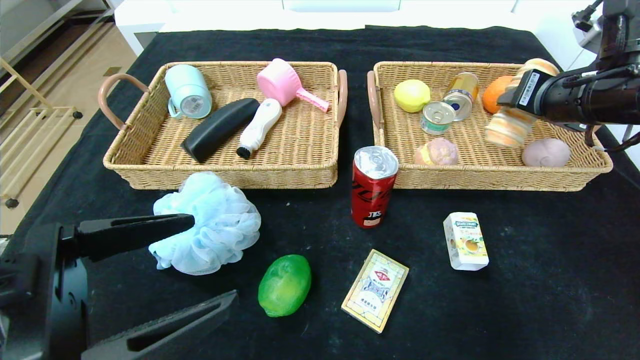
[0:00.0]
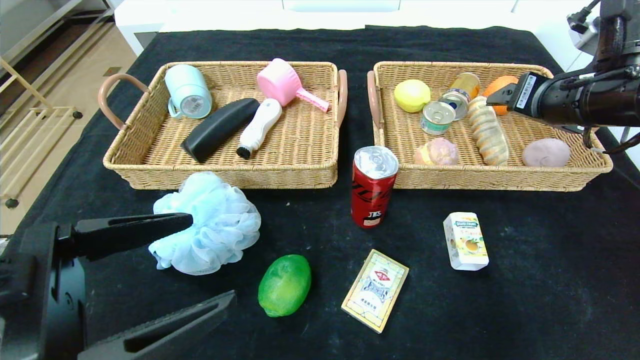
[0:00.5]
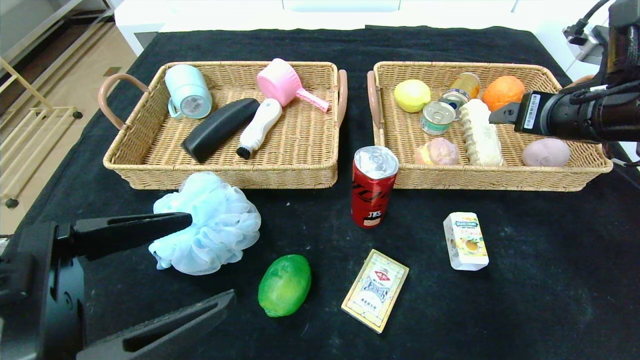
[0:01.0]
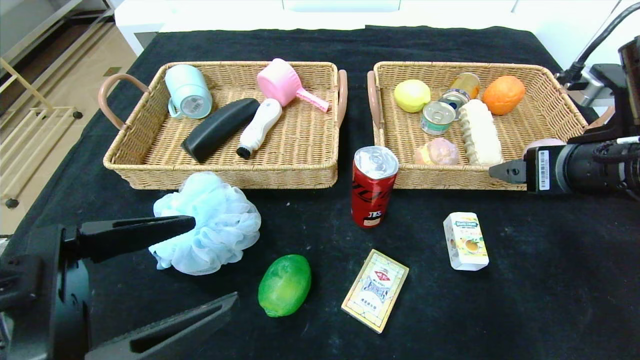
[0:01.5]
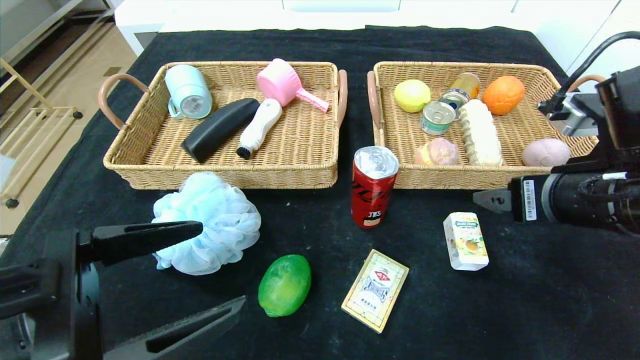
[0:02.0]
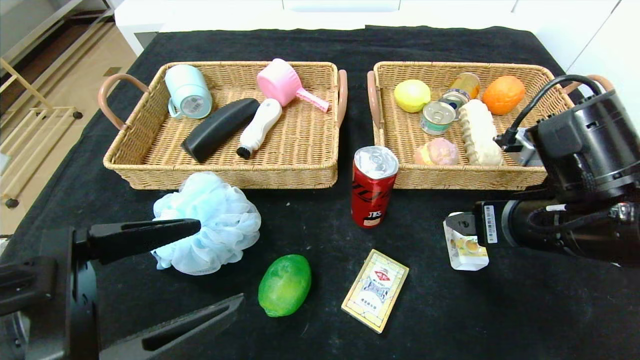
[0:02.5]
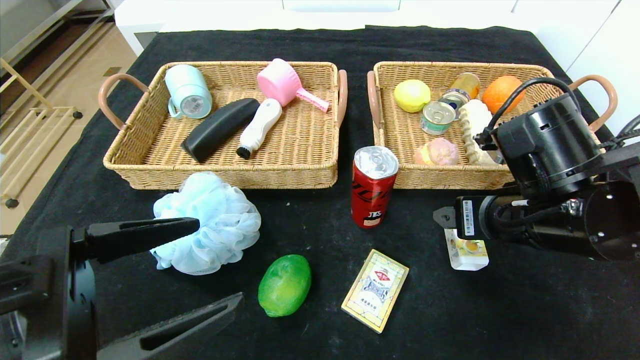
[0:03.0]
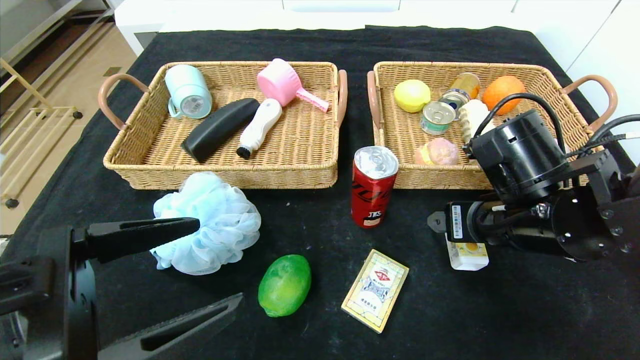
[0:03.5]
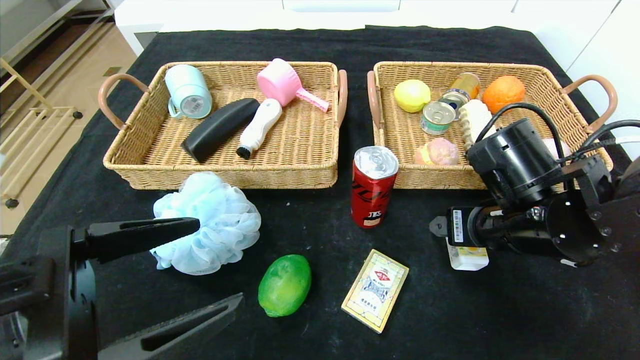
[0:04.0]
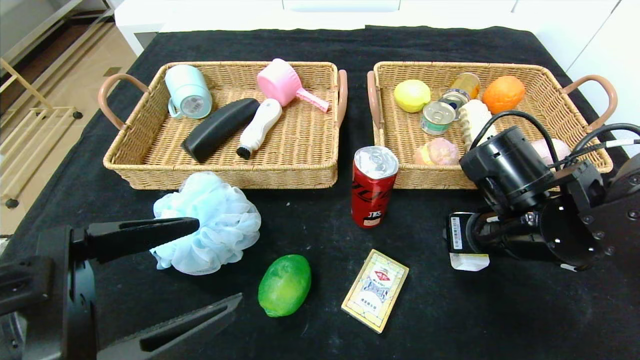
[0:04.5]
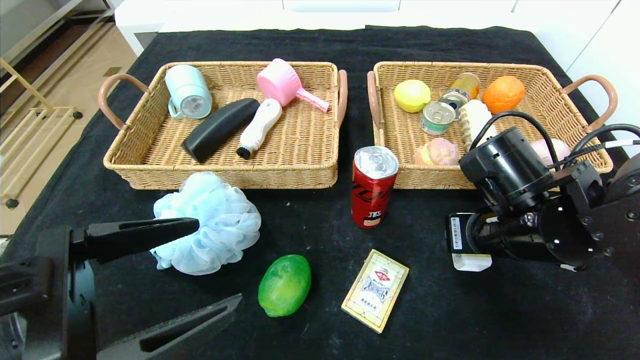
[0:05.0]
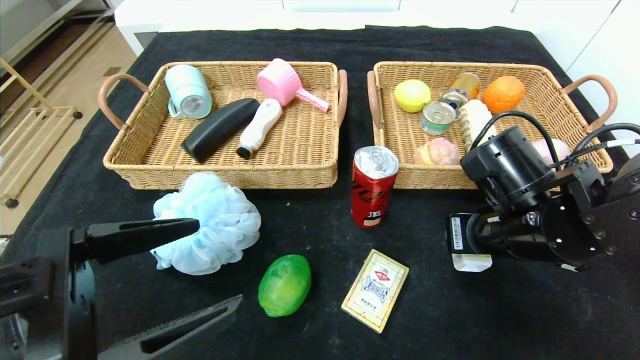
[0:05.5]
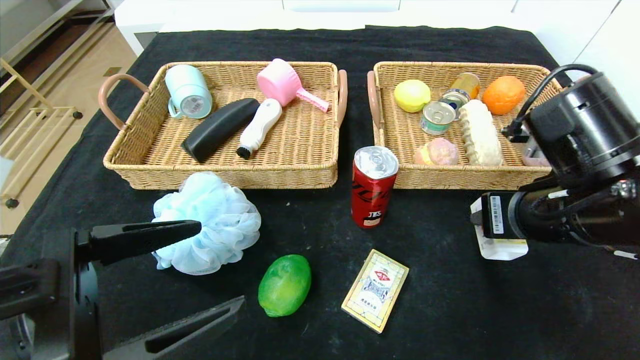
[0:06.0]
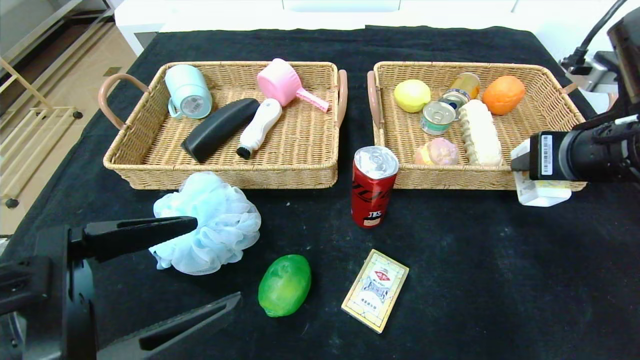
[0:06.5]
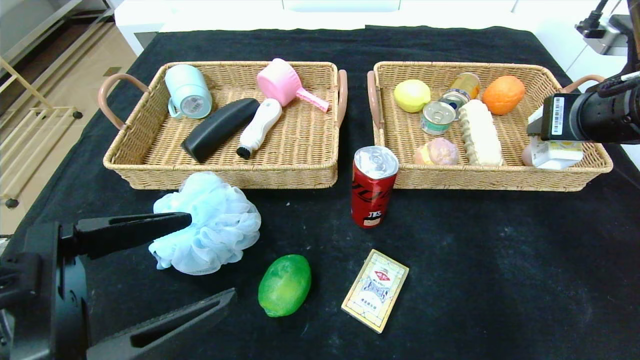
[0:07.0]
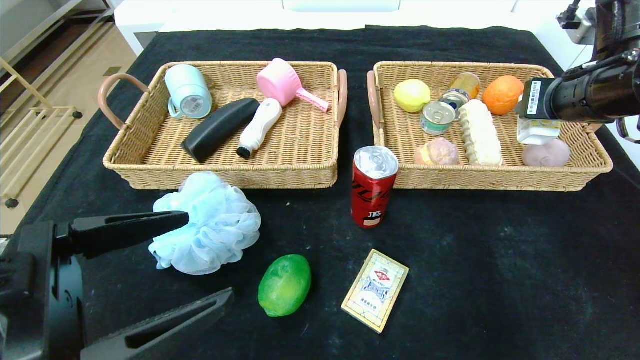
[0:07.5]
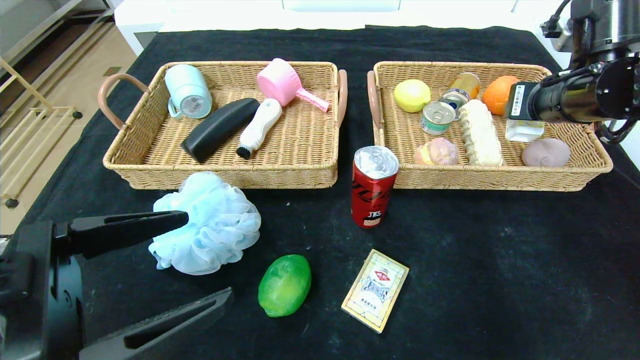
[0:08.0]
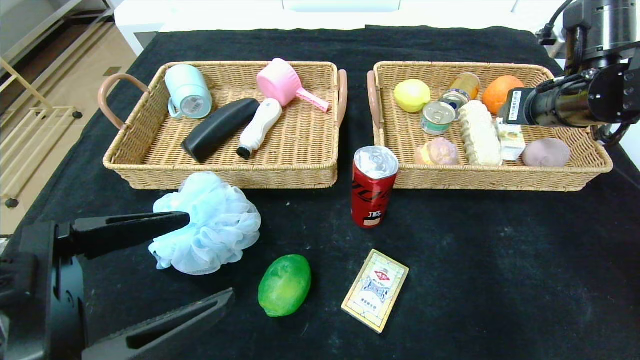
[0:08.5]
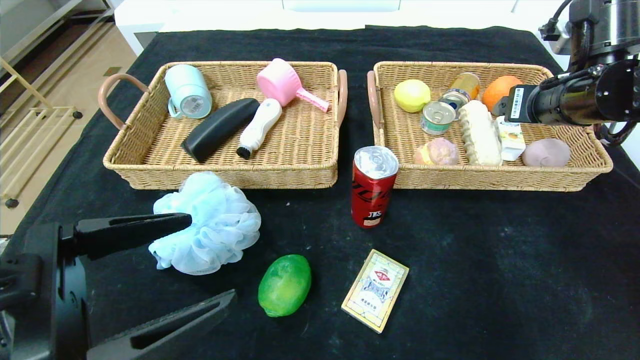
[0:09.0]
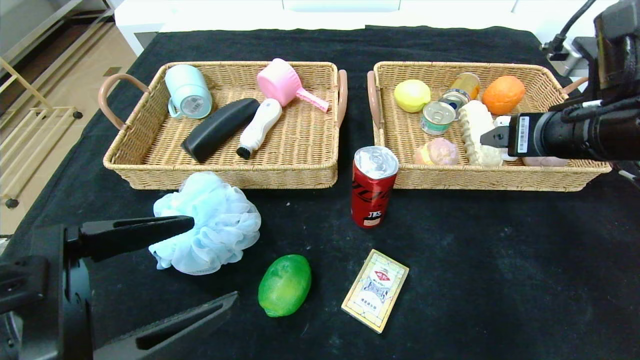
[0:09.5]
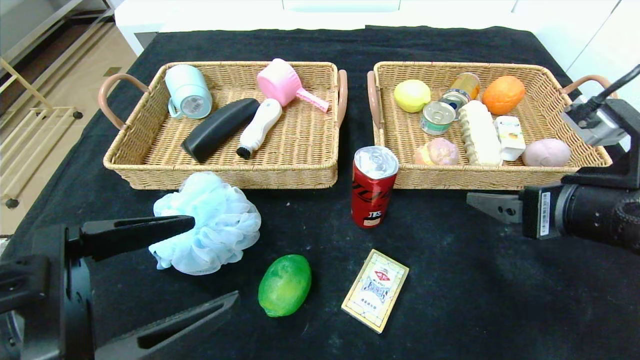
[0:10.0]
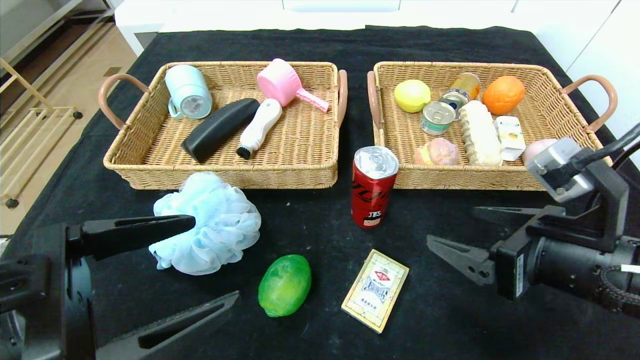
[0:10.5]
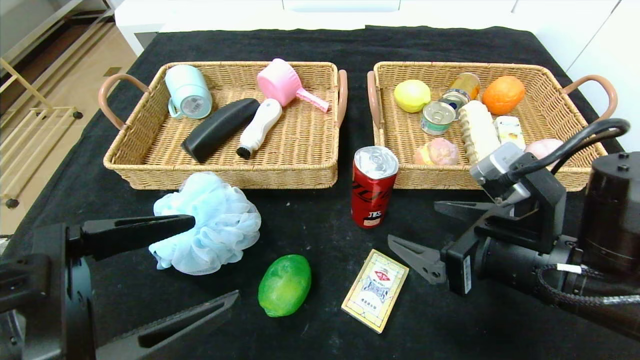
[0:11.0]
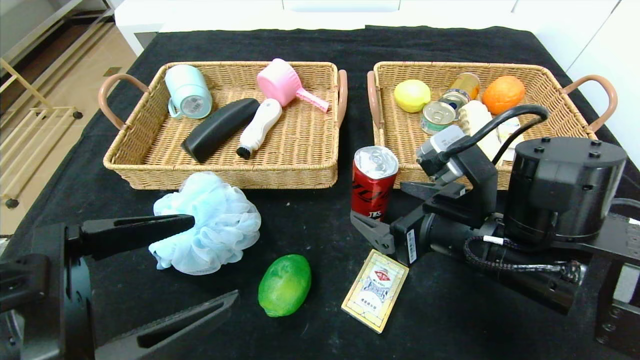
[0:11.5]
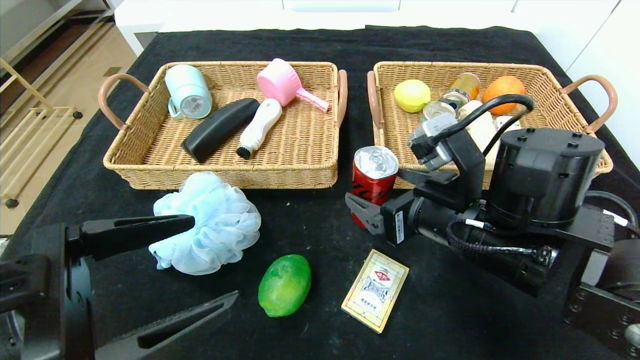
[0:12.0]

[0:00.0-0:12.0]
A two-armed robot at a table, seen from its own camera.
Step, 0:00.5 to 0:08.5: Grasp the square chewing gum and put it in the right basket.
0:00.0 to 0:02.0: The right gripper shifts roughly 15 cm backward, downward and to the left, and opens up.
0:02.0 to 0:04.0: The right gripper goes approximately 5 cm downward.
0:04.0 to 0:06.0: The right gripper shifts by some 5 cm, and closes.
0:06.0 to 0:08.0: The right gripper shifts about 15 cm forward, upward and to the right.
0:08.0 to 0:10.0: The right gripper heads backward and downward, covering approximately 15 cm, and opens.
0:10.0 to 0:12.0: The right gripper shifts about 10 cm to the left.

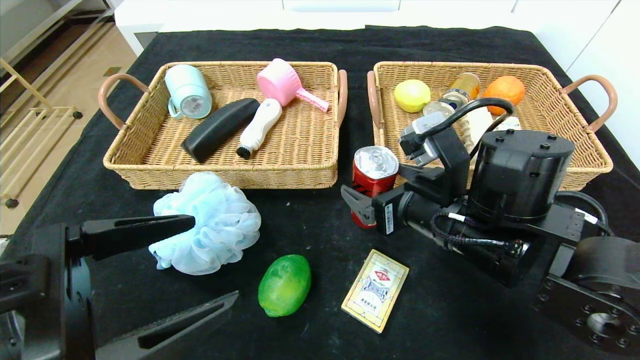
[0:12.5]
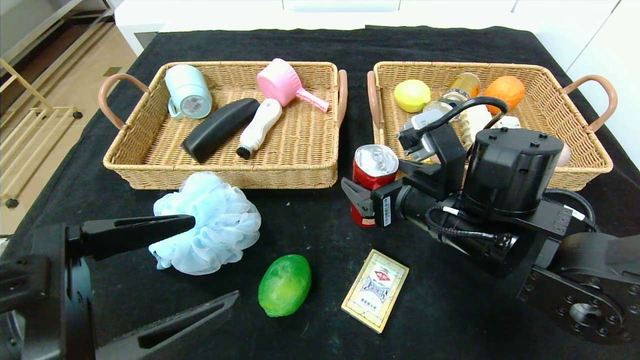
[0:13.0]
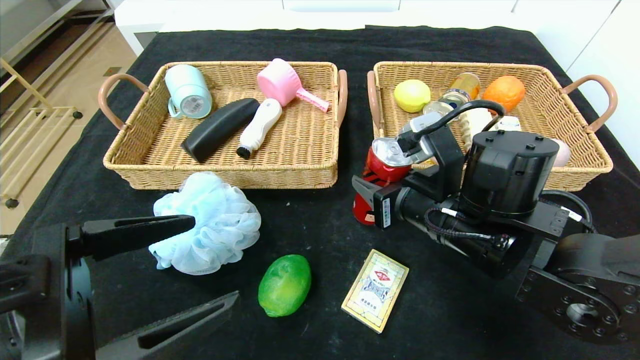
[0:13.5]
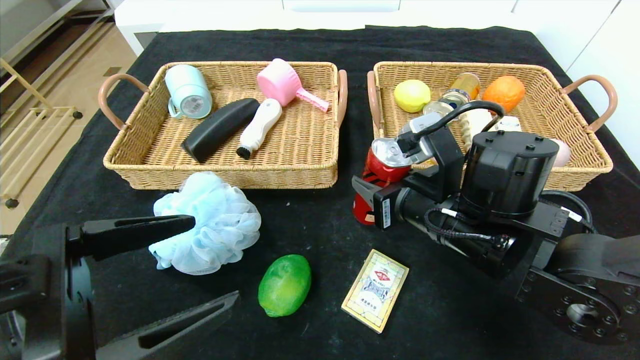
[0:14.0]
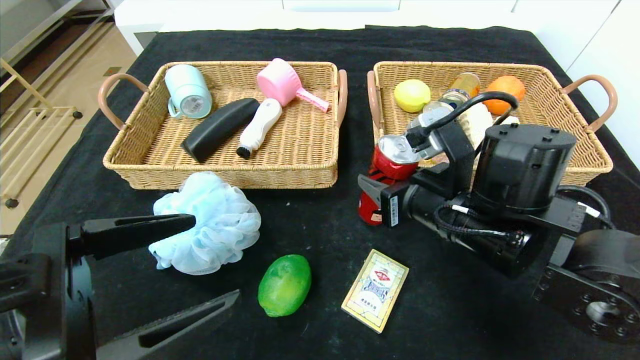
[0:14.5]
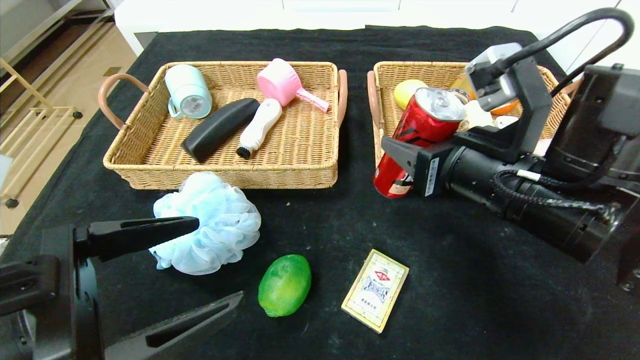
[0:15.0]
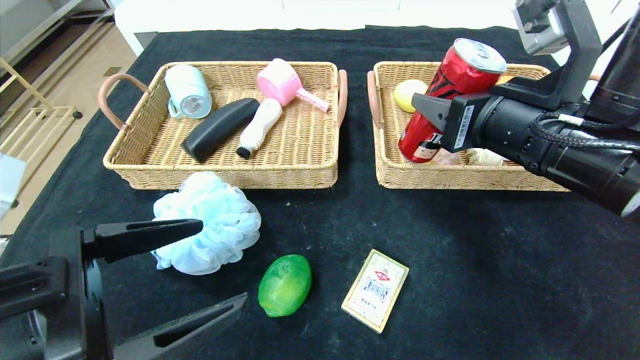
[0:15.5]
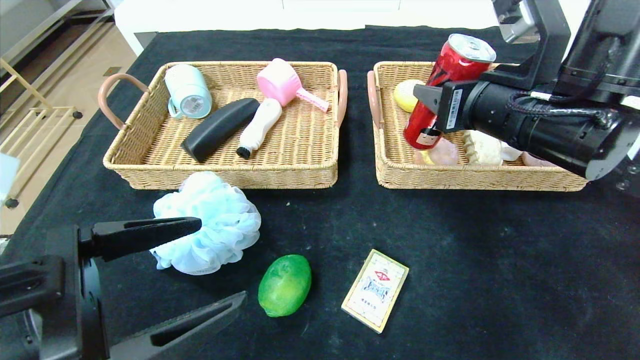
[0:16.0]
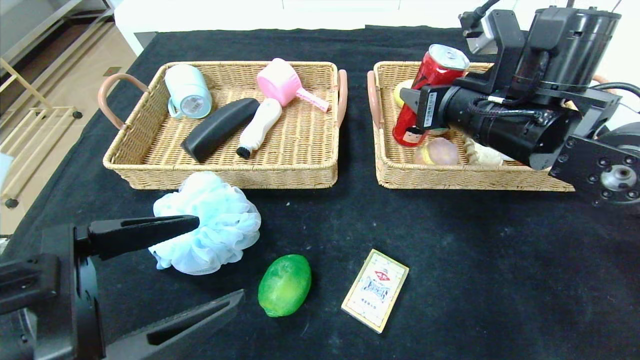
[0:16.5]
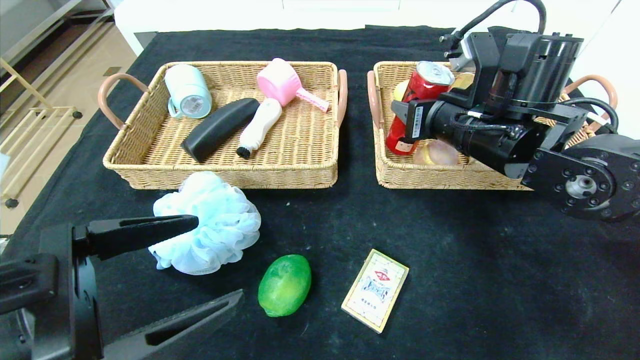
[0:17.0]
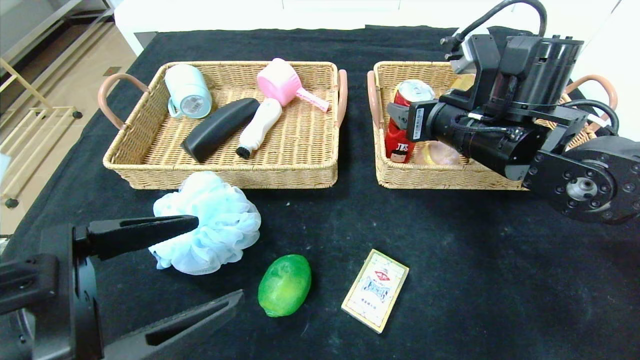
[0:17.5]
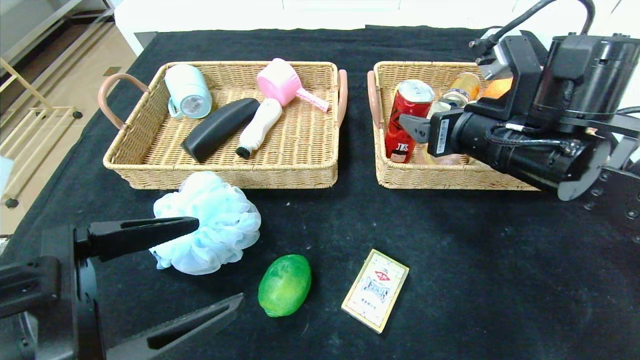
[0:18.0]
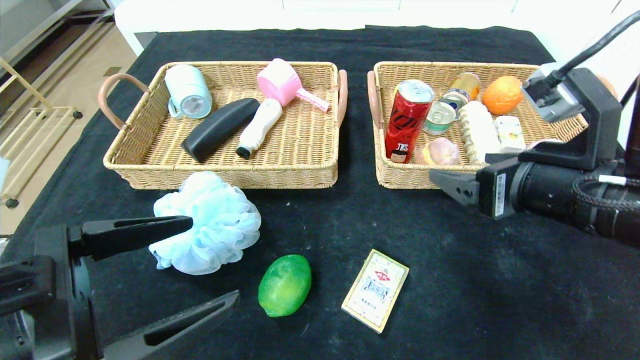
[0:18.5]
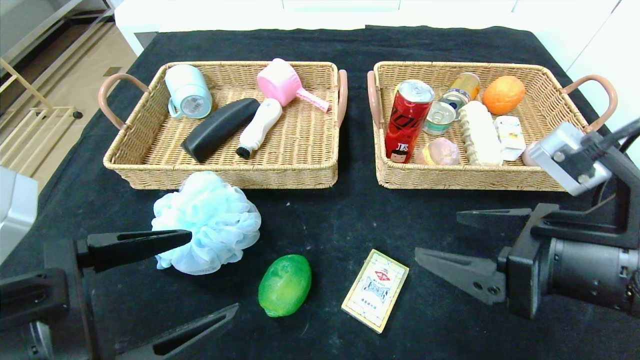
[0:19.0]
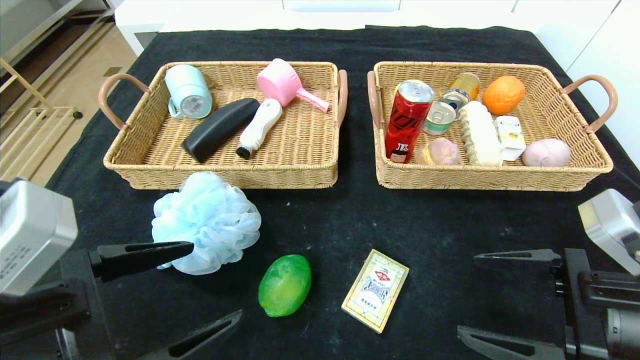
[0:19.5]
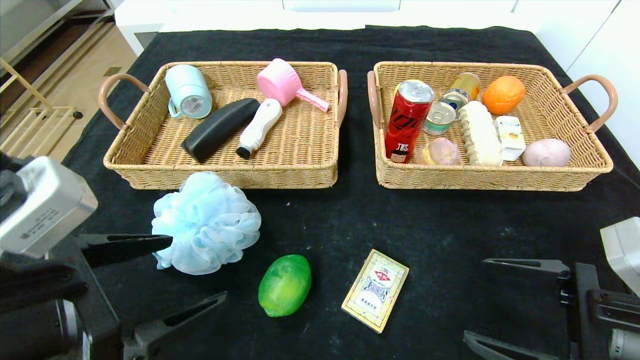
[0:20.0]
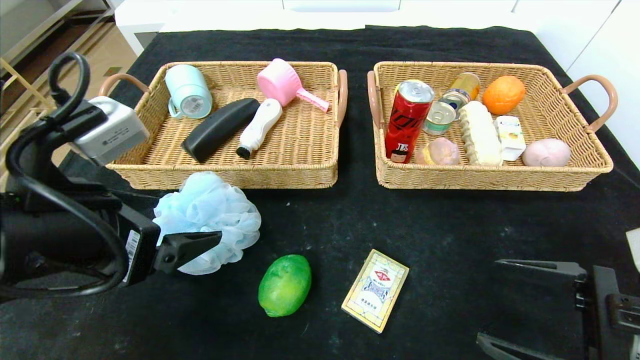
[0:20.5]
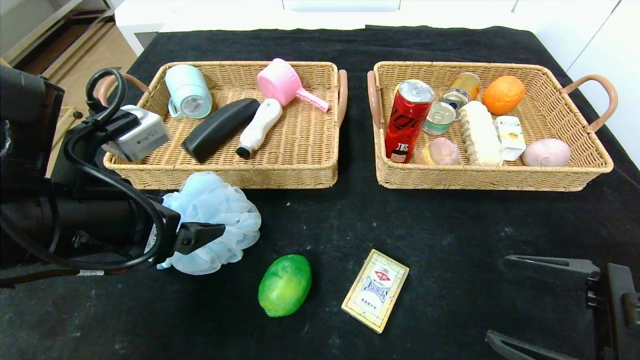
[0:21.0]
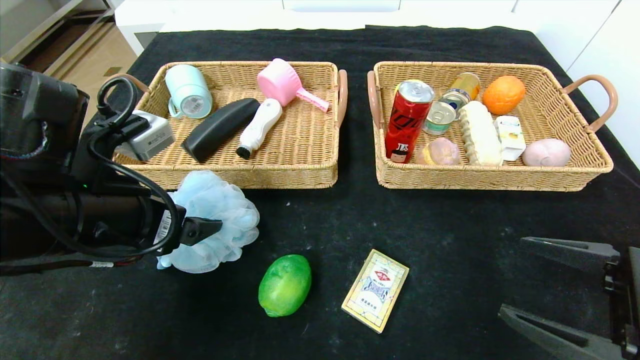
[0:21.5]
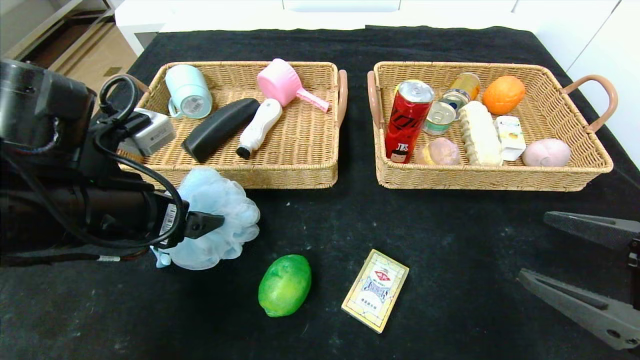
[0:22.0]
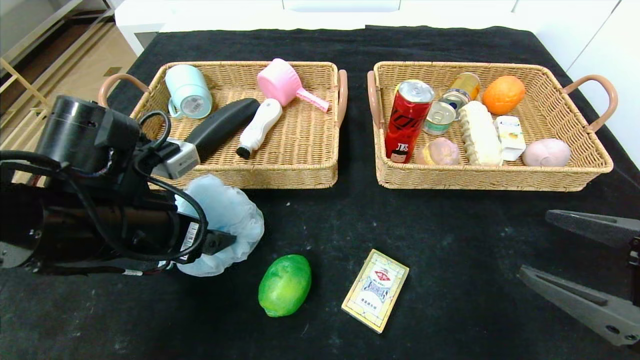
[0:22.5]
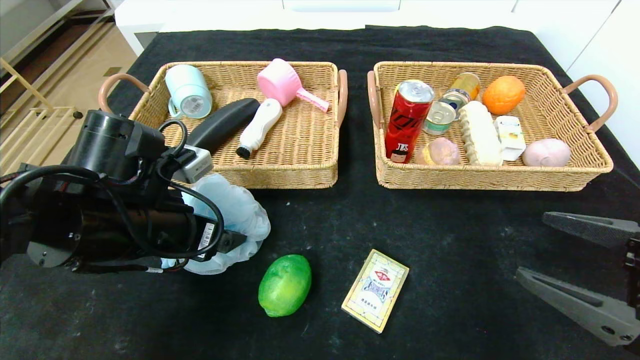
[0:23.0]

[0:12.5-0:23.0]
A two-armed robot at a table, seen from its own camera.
Step, 0:12.5 to 0:17.5: Grasp the canned cola and put it in the right basket.
0:12.5 to 0:14.5: The right gripper closes up.
0:14.5 to 0:16.5: The right gripper is displaced upward and forward by some 10 cm.
0:16.5 to 0:19.0: The right gripper shifts approximately 15 cm backward, and opens.
0:19.0 to 0:21.0: The right gripper is displaced to the right and downward by approximately 10 cm, while the left gripper shifts some 10 cm forward.
0:21.0 to 0:23.0: The left gripper is displaced forward by some 5 cm.
